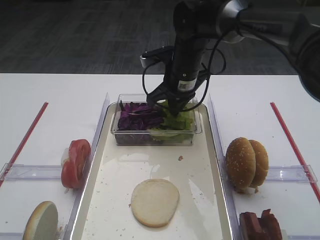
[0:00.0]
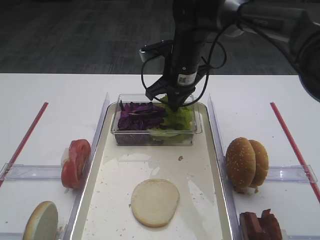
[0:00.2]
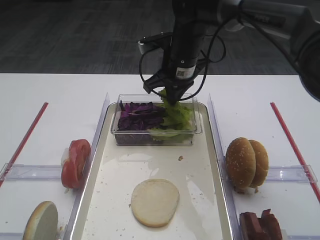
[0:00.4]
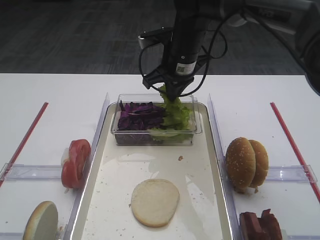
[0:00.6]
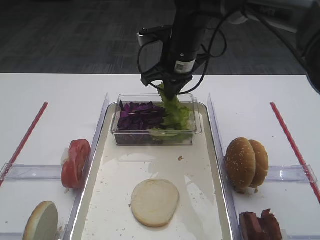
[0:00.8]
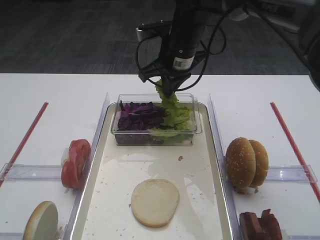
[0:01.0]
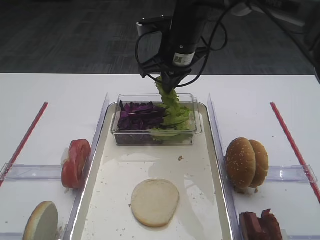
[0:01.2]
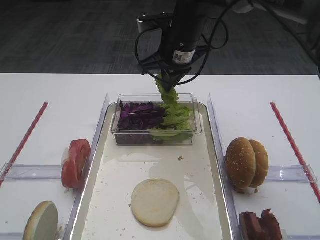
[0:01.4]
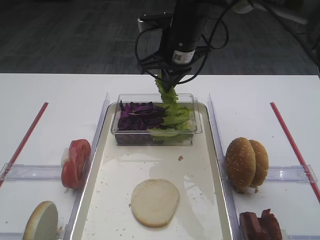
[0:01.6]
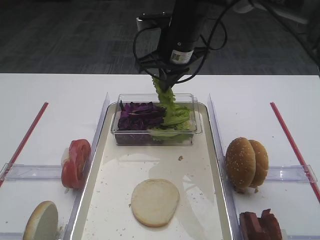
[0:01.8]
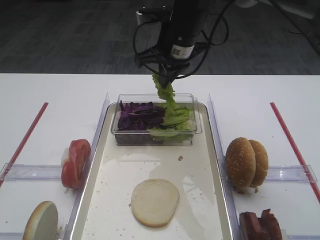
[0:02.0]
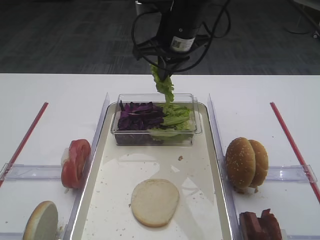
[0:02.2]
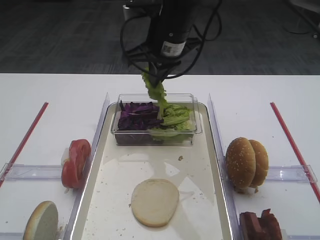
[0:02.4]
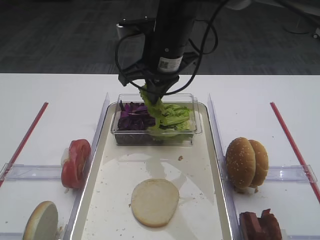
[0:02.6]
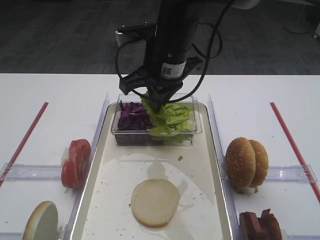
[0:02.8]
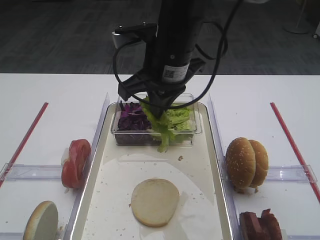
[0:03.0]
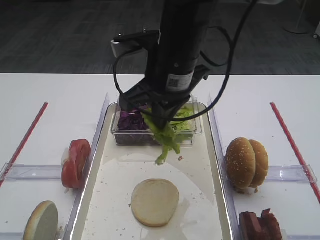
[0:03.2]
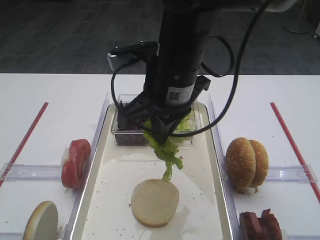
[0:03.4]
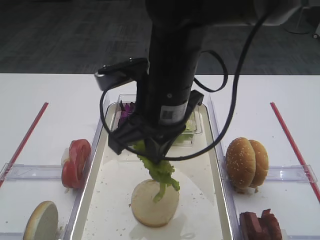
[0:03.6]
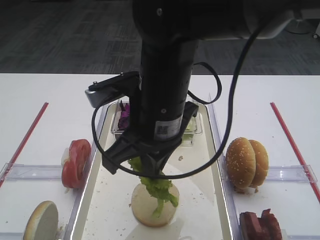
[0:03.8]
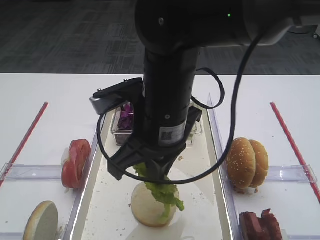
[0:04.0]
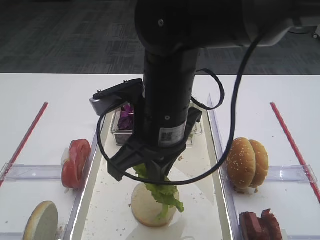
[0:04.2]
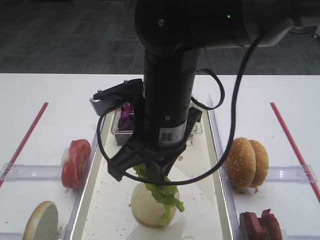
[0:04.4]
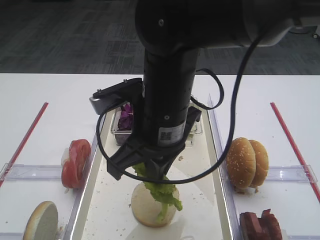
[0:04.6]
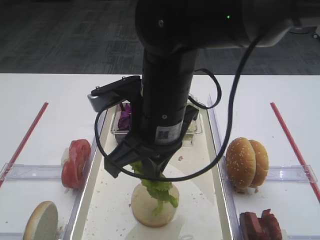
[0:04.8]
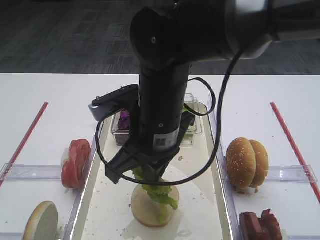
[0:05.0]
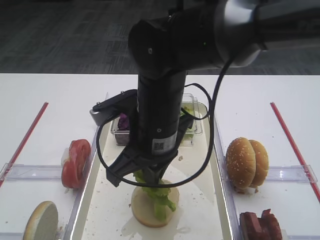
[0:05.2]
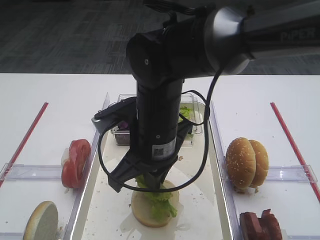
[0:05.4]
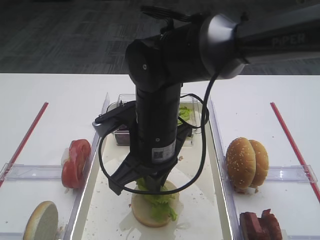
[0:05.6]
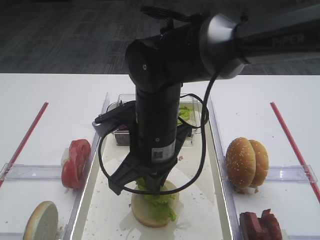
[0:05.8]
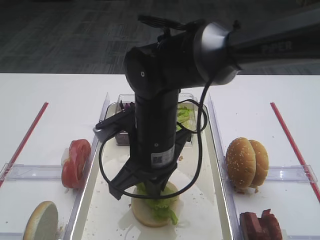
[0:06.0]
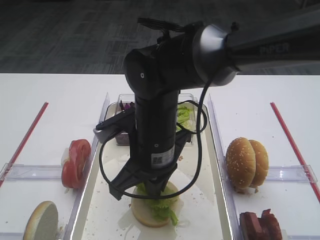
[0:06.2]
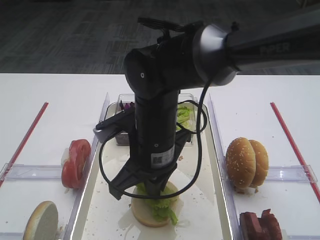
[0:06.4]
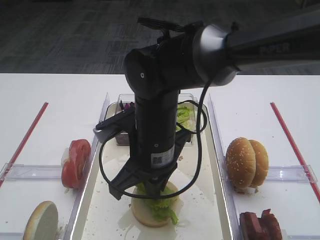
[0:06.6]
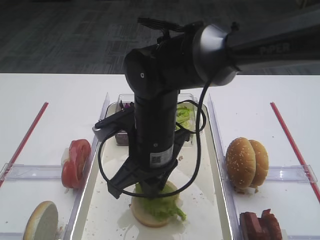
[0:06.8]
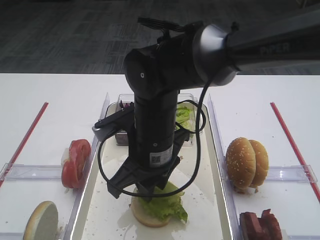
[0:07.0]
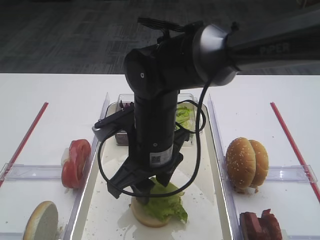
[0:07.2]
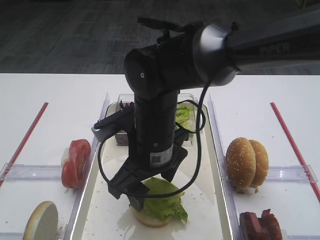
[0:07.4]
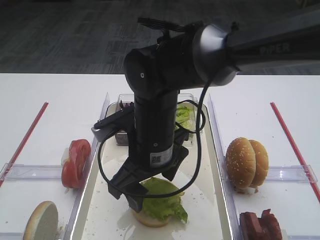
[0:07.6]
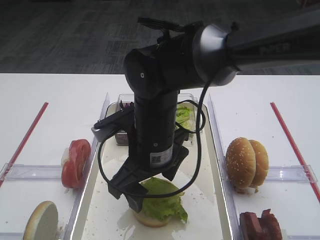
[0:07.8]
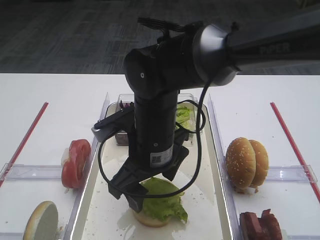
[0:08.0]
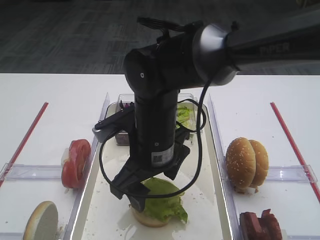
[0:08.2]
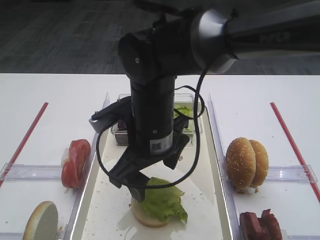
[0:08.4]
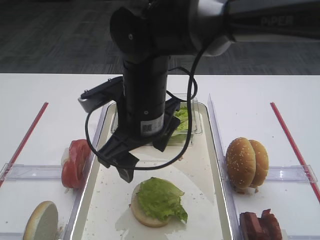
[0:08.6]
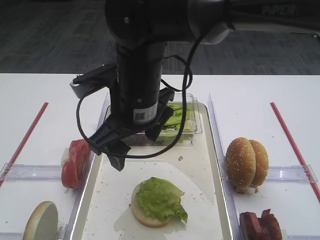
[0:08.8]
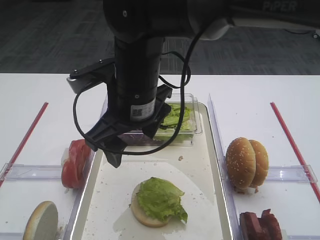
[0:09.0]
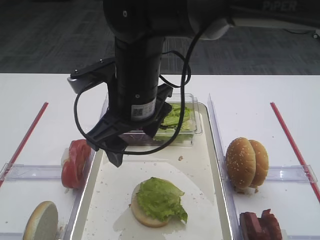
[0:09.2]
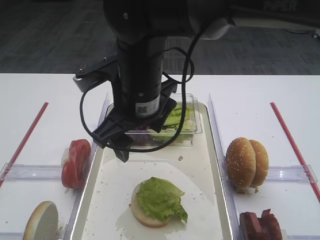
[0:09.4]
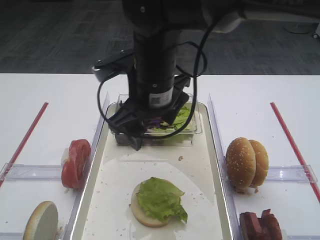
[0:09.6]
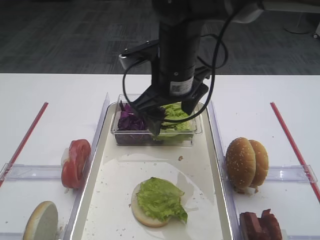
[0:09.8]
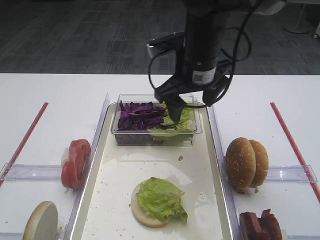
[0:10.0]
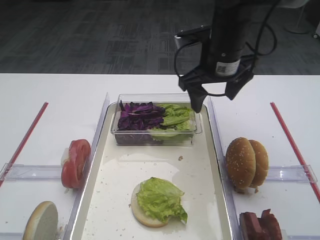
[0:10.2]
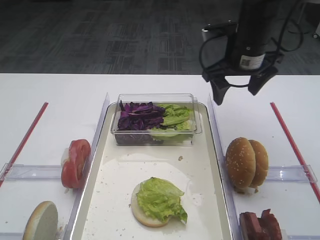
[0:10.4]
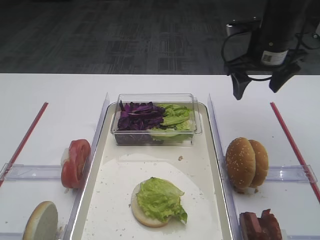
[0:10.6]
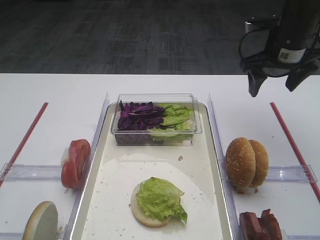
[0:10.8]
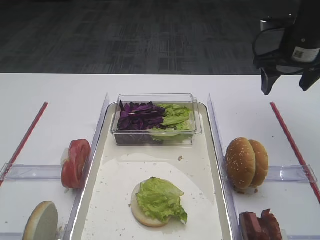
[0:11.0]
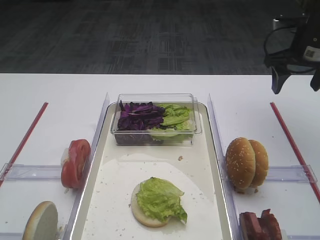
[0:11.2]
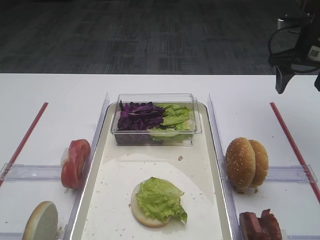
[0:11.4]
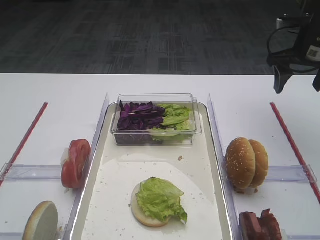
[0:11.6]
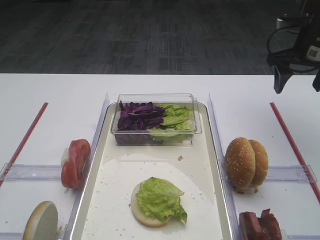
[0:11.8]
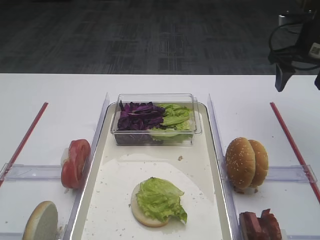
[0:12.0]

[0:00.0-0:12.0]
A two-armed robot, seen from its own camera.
Step, 0:02.0 to 0:09.0: Place the lettuce leaf on the bread slice with the right gripper.
0:00.0 to 0:01.6: The right gripper shifts some 5 cm upward.
0:01.6 to 0:03.0: The right gripper shifts about 10 cm backward.
0:03.0 to 0:04.4: The right gripper moves backward, roughly 10 cm.
0:04.4 to 0:06.0: The right gripper travels downward by some 5 cm.
0:06.0 to 0:07.6: The right gripper opens.
0:07.6 to 0:09.0: The right gripper travels upward by about 5 cm.
0:09.0 to 0:10.4: The right gripper moves to the right and forward, some 20 cm.
0:10.4 to 0:12.0: The right gripper shifts some 15 cm to the right.

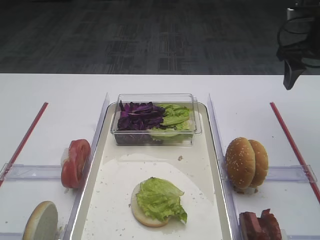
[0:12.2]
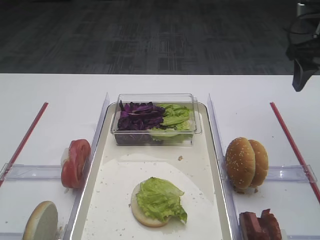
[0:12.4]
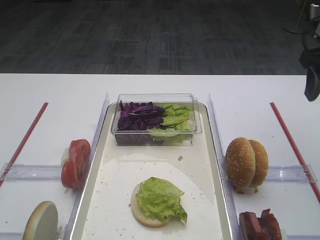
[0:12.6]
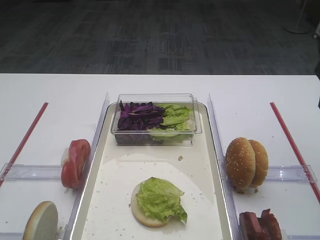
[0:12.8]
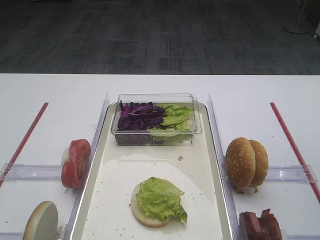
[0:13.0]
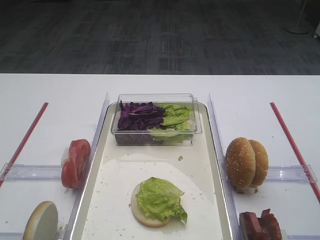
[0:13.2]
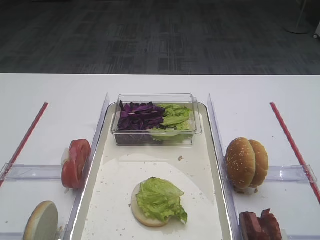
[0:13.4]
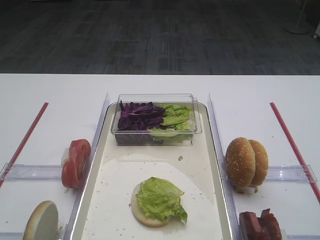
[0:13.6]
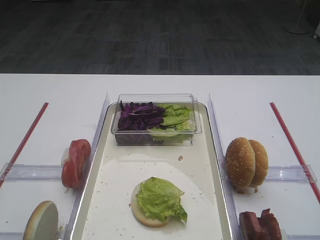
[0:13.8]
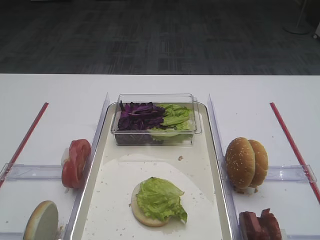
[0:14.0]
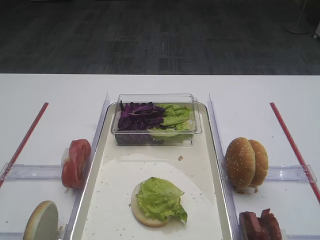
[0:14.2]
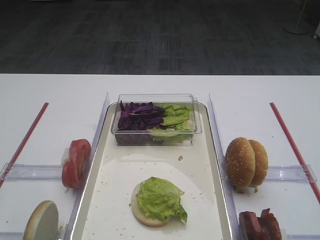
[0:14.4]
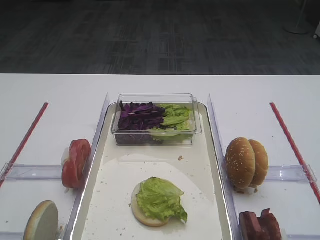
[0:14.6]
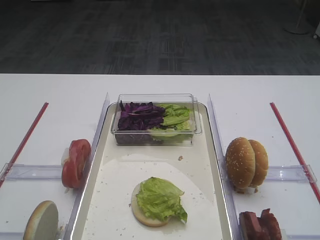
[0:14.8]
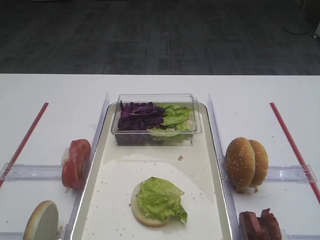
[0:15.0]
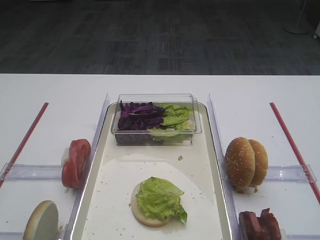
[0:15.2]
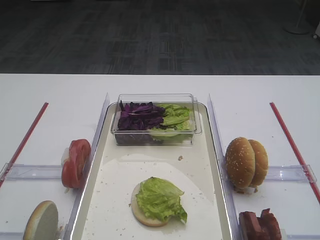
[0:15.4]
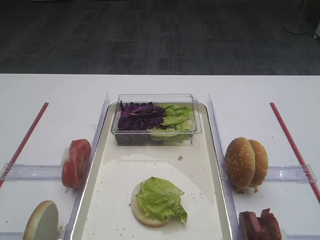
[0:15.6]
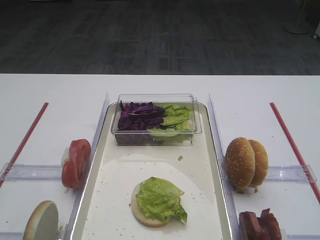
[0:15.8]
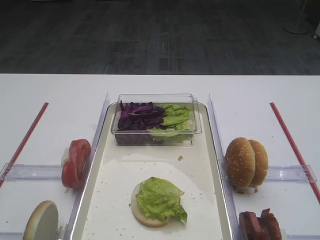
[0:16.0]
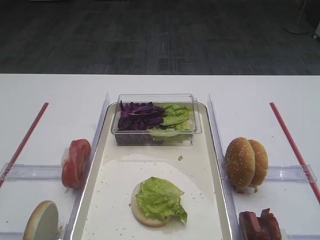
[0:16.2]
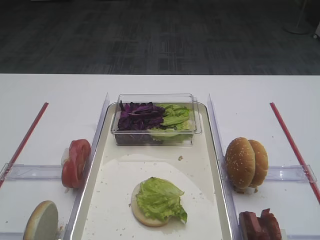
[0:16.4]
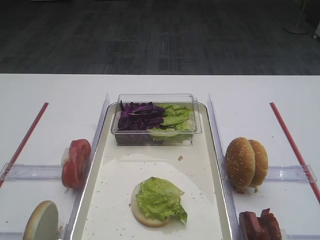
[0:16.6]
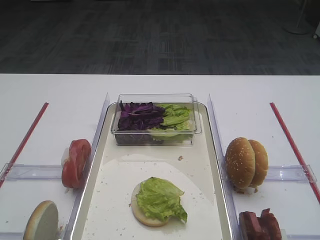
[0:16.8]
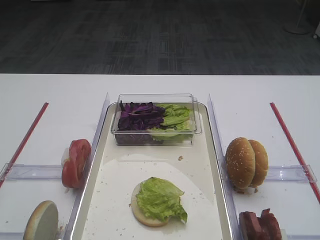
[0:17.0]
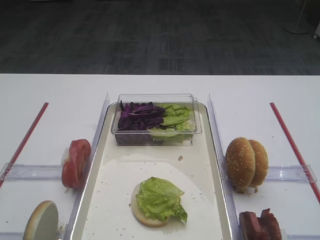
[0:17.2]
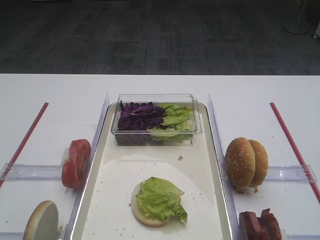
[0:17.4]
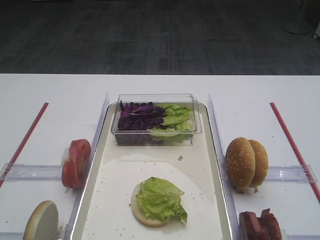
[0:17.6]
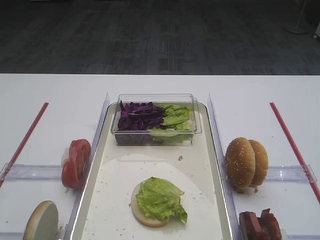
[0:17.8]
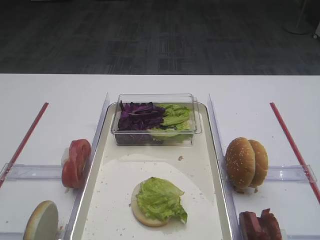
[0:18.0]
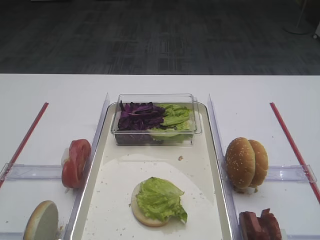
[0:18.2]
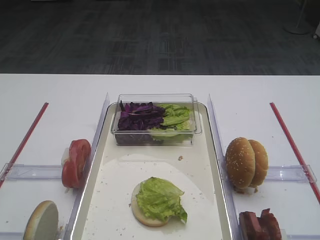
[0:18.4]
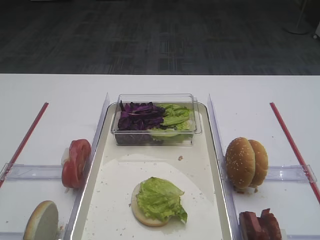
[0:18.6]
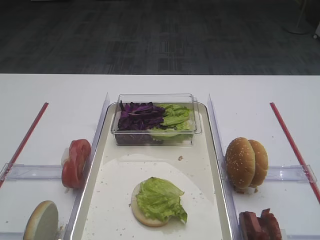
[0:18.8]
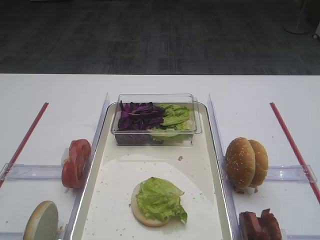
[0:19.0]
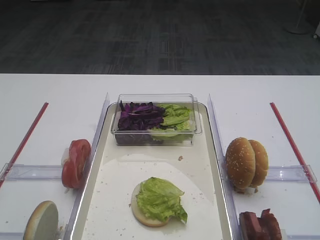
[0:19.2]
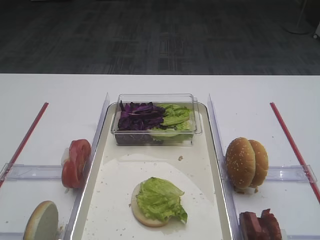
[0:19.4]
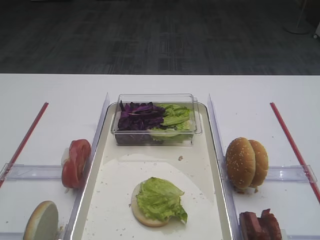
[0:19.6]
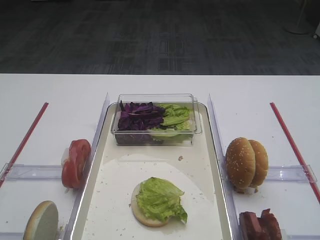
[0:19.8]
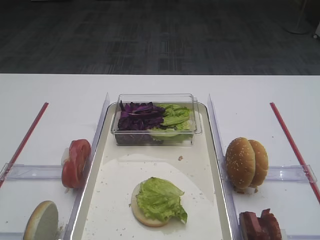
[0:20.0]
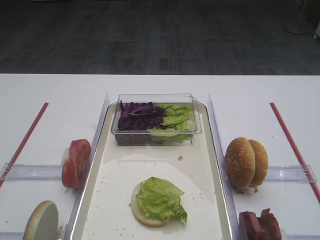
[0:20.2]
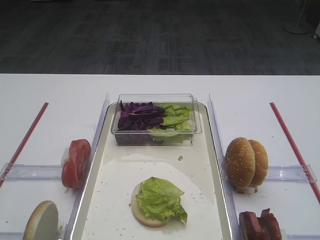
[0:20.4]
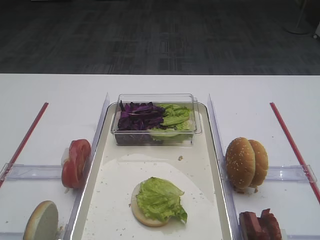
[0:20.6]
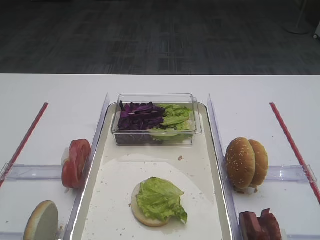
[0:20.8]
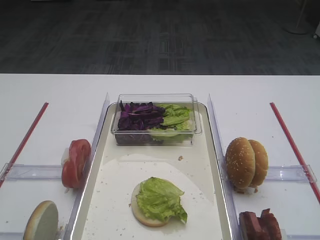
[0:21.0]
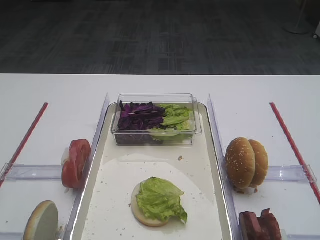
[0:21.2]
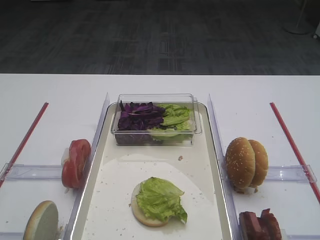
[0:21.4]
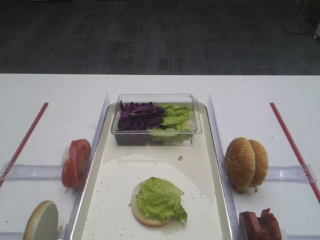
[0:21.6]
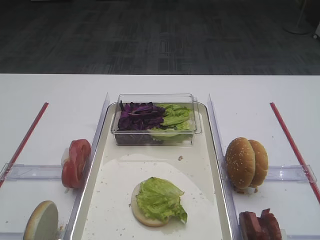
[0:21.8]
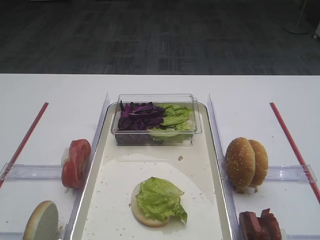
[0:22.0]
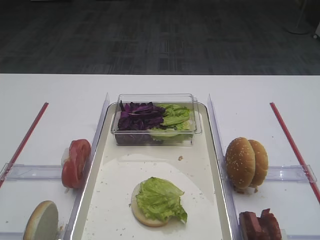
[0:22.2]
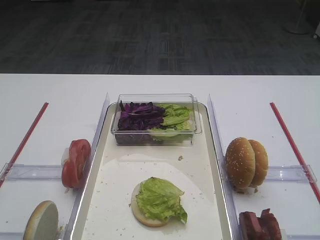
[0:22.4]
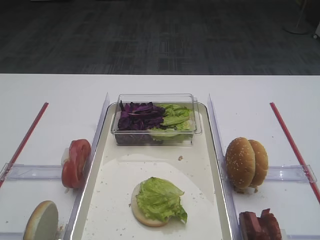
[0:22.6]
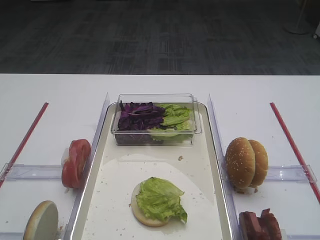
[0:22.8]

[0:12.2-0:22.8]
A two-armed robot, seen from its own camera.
0:12.2 to 0:13.8: The right gripper travels backward by approximately 35 cm.
0:16.8 to 0:22.8: The two grippers keep their place.
